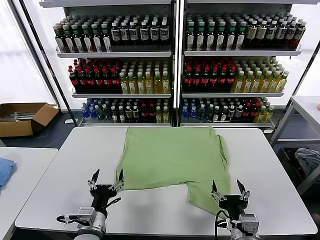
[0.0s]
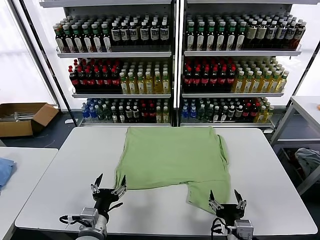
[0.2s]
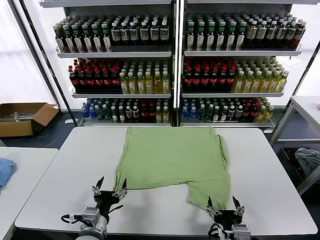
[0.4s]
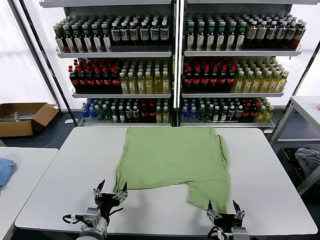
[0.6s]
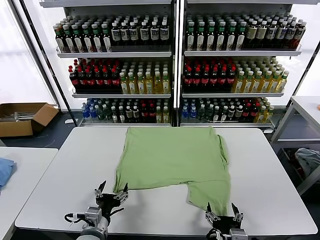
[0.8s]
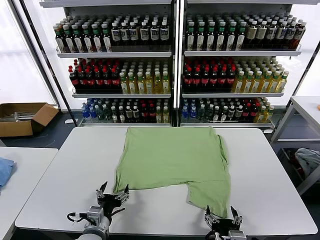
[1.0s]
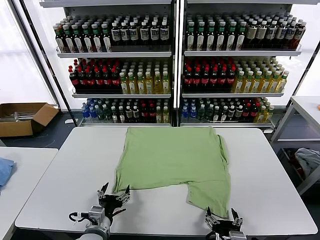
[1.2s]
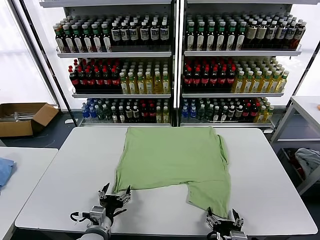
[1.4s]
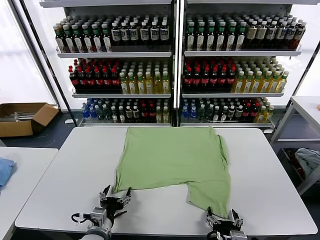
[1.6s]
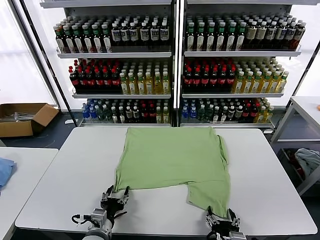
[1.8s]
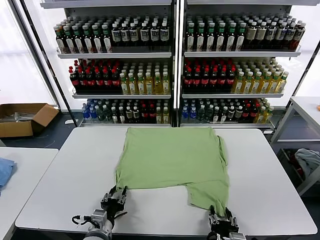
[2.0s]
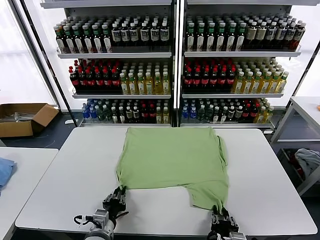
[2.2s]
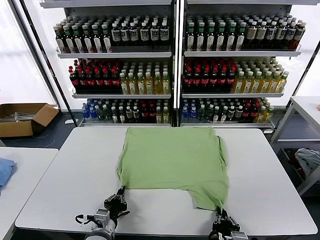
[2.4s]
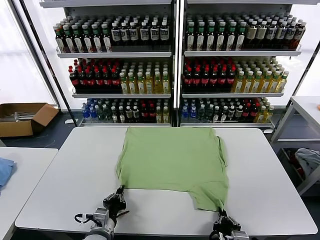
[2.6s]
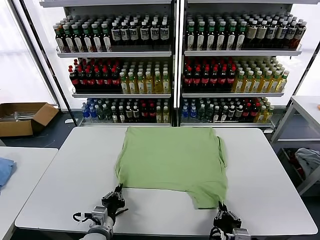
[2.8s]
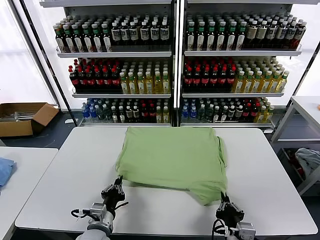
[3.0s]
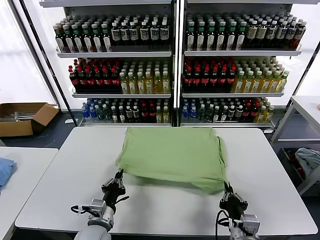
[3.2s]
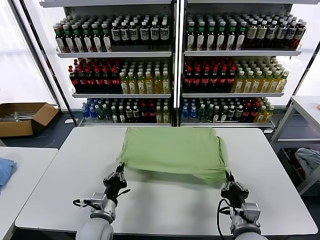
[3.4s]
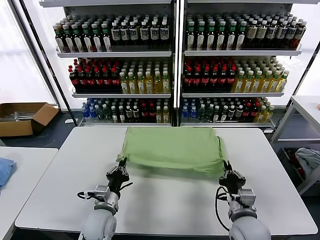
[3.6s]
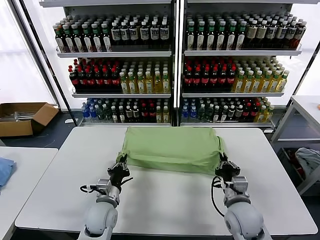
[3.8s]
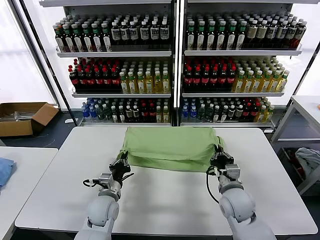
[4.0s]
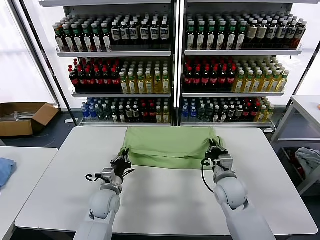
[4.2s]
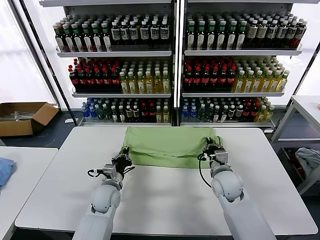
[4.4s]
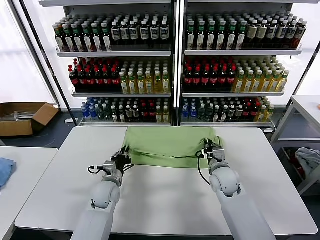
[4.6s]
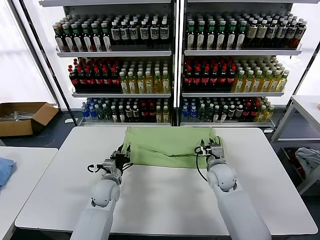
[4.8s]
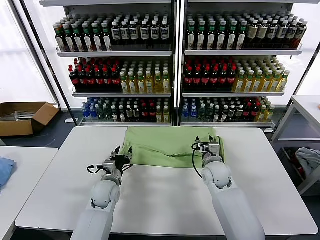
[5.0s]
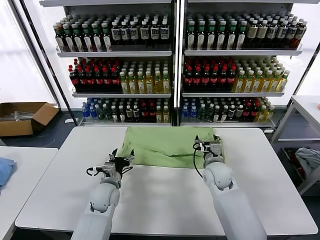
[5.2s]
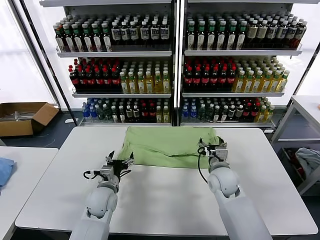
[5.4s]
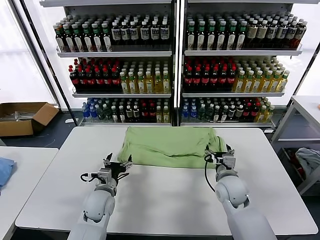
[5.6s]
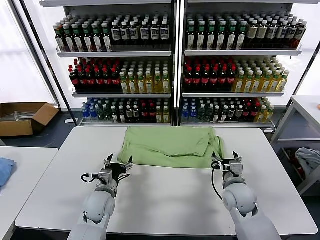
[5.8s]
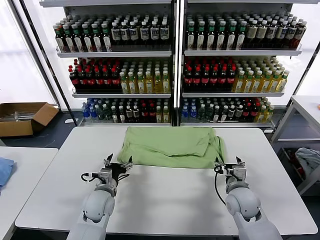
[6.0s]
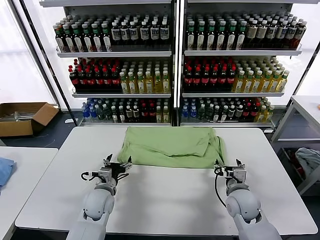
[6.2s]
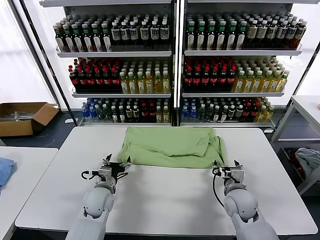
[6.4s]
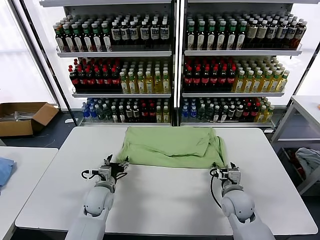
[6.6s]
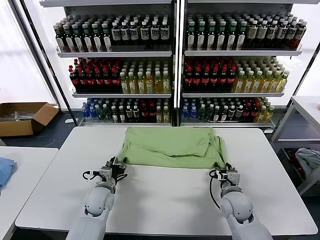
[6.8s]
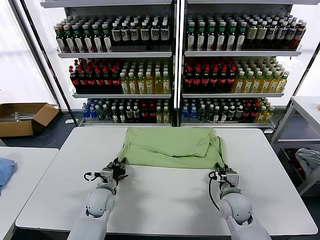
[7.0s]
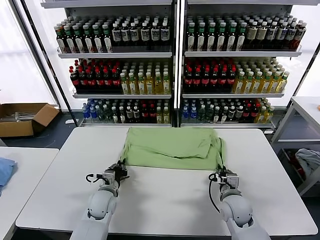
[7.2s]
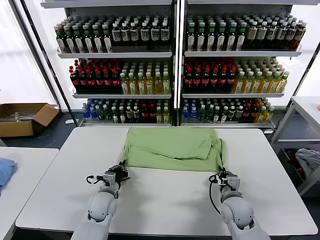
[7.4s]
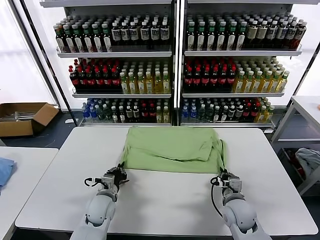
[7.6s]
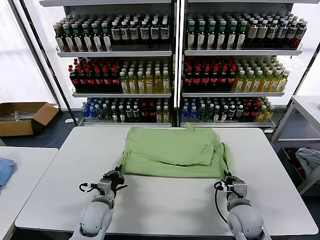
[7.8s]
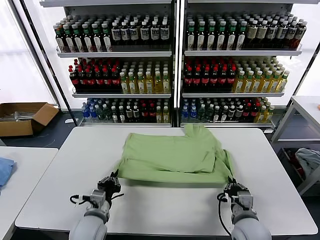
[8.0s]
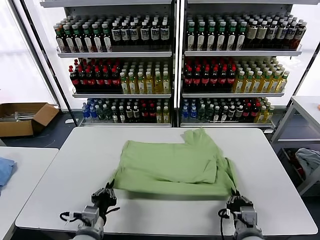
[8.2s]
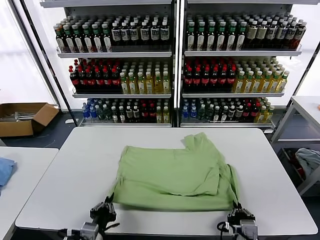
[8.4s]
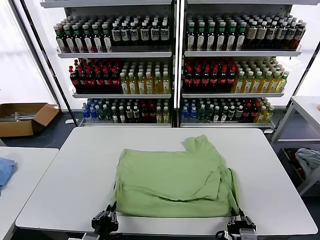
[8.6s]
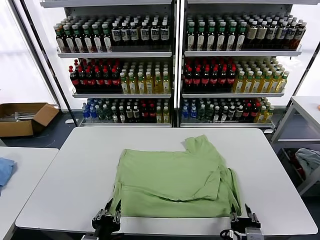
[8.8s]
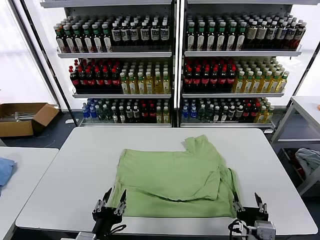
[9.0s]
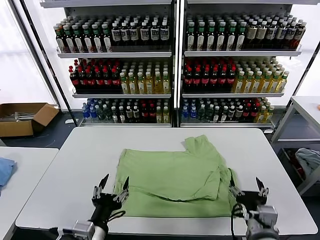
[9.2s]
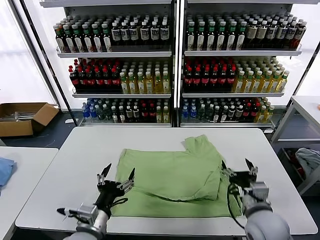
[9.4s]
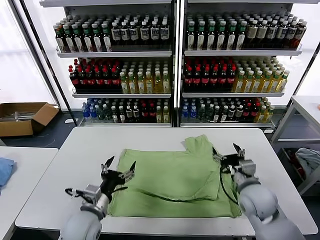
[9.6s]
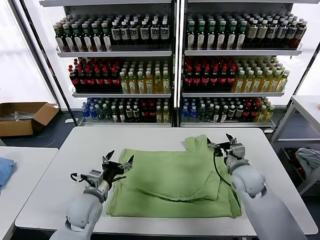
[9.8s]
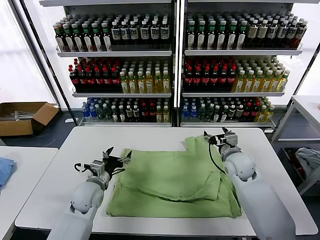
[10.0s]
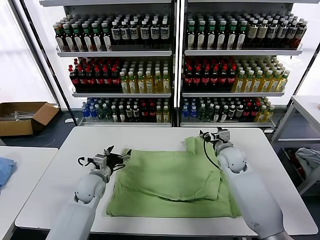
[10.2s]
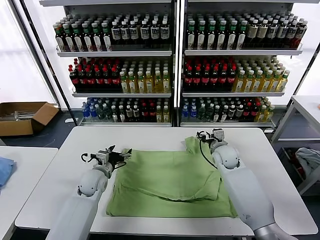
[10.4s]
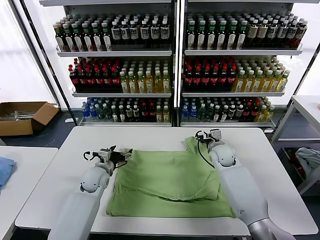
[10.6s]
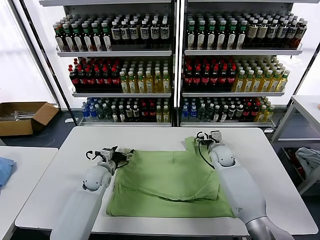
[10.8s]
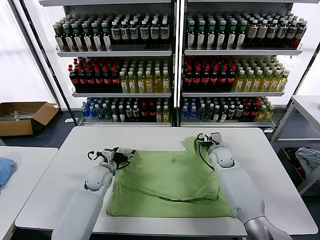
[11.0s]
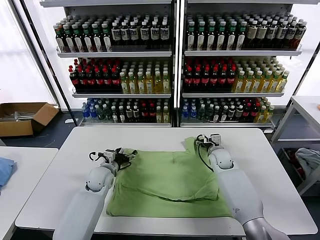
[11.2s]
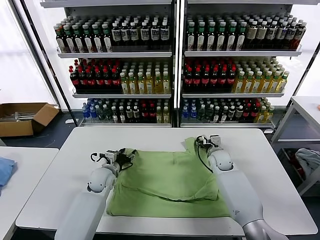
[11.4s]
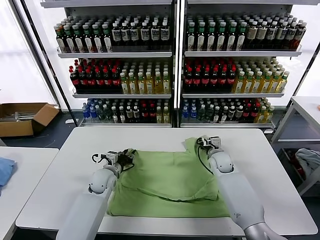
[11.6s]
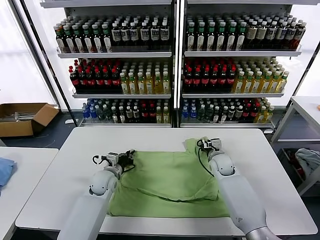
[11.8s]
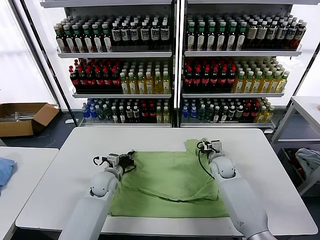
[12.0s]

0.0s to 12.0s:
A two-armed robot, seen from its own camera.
Task of the whole recording: fold and organize the clothes.
Step, 0.0s to 2.4s: use both grippers simultaneously to clamp the lower edge of the clothing fabric.
Step, 2.8s to 5.0s: use both grippers to drag the lower edge of the fabric forward and fold it over the upper edge.
Step, 5.2s to 8.8s: Drag the clothes downward with both gripper.
Step, 9.0s to 12.0s: use both grippers simultaneously to clamp the upper edge of the clothing fabric.
1.6s to 3.0s: The left gripper closes up, while the right gripper closes its fingers.
3.0s to 4.4s: The right gripper moves forward, about 25 cm, while the left gripper goes approximately 15 cm forward.
4.4s to 6.0s: The right gripper moves backward, approximately 5 cm, and opens up. Meanwhile the left gripper opens up.
6.0s to 7.6s: The left gripper closes. The right gripper closes up.
7.6s to 9.0s: Both grippers move backward and upward, approximately 20 cm. The left gripper opens up. The right gripper opens its fingers.
9.0s to 10.4s: The two grippers go about 35 cm forward. The left gripper opens.
10.4s to 12.0s: The right gripper goes some 5 cm downward, and closes up. The left gripper closes up.

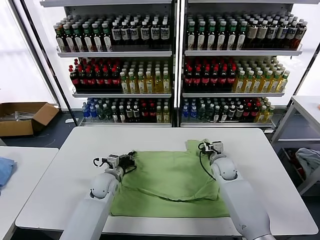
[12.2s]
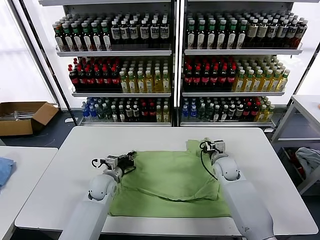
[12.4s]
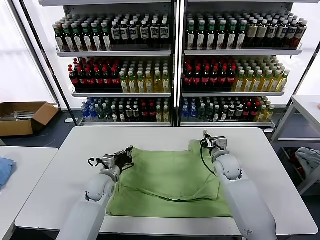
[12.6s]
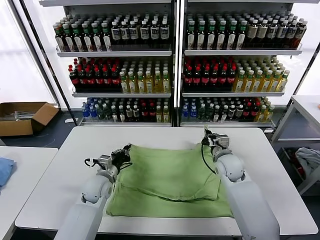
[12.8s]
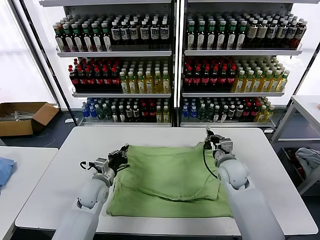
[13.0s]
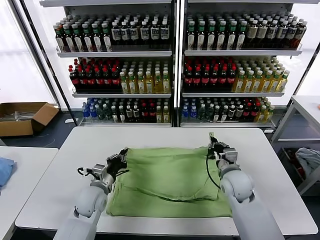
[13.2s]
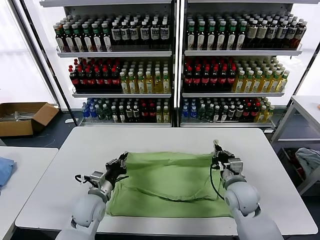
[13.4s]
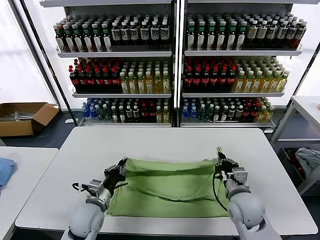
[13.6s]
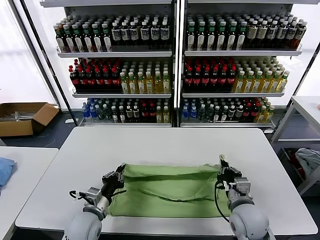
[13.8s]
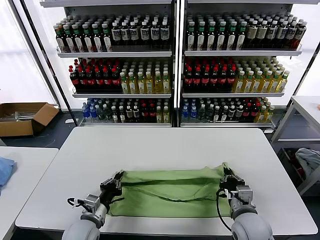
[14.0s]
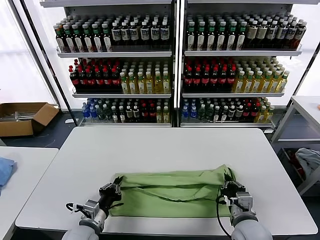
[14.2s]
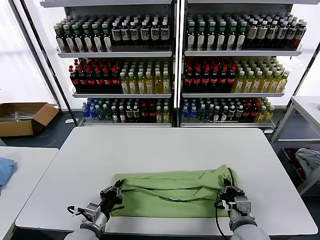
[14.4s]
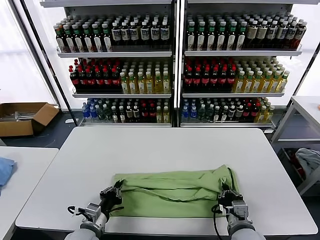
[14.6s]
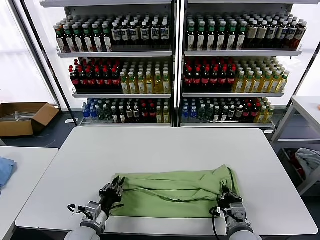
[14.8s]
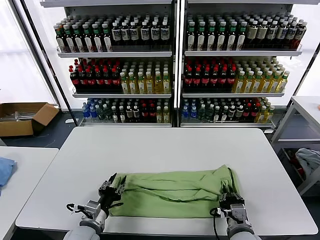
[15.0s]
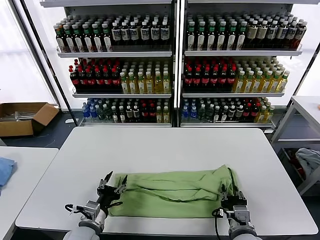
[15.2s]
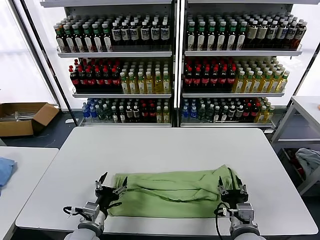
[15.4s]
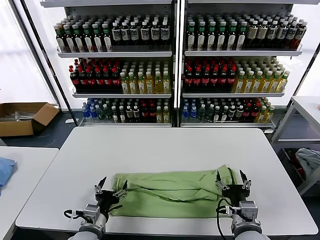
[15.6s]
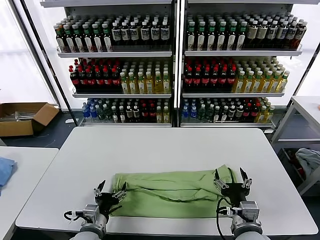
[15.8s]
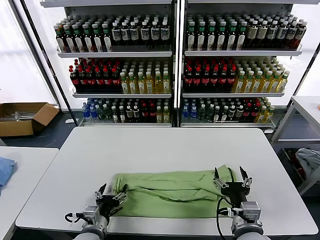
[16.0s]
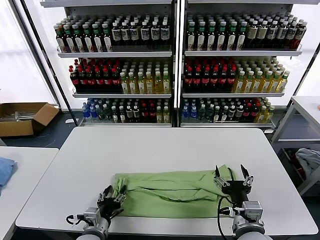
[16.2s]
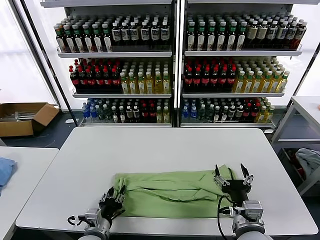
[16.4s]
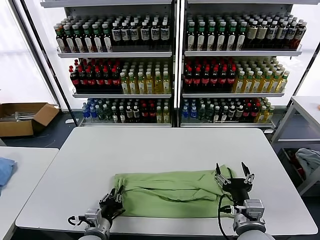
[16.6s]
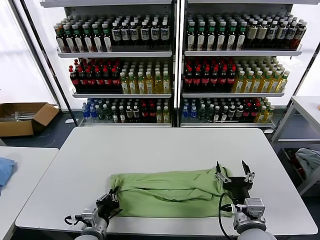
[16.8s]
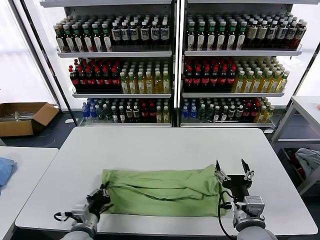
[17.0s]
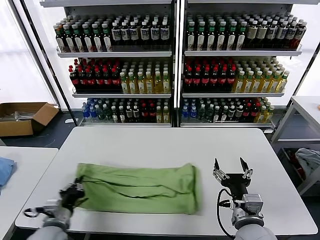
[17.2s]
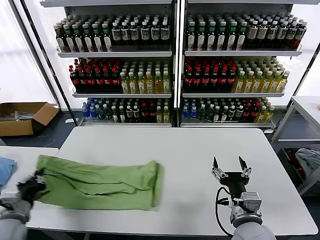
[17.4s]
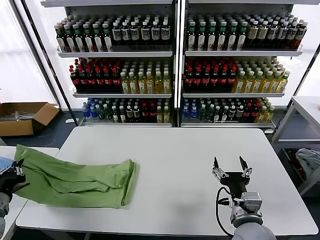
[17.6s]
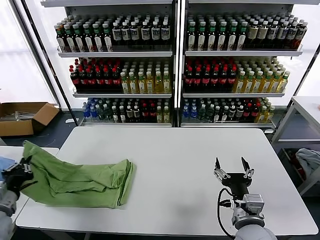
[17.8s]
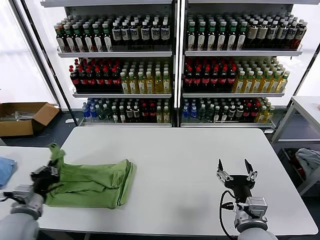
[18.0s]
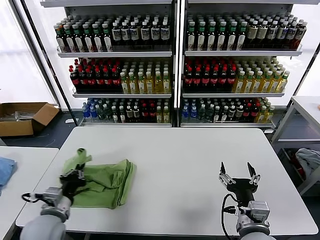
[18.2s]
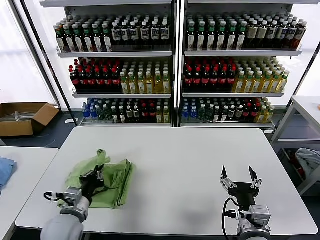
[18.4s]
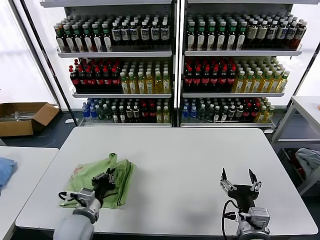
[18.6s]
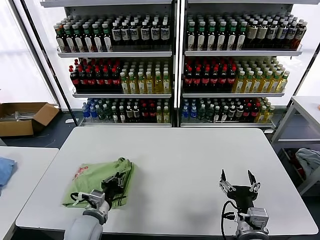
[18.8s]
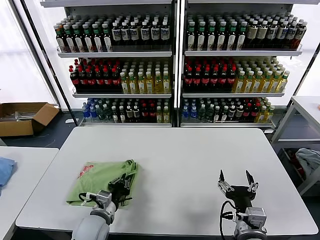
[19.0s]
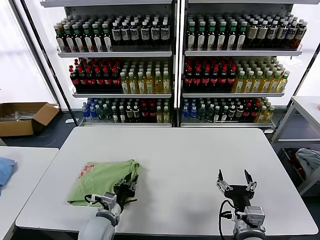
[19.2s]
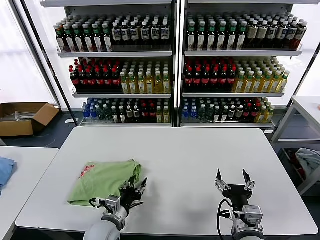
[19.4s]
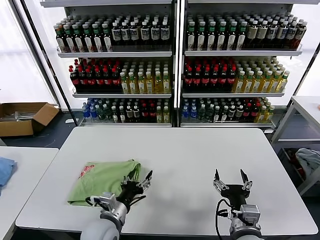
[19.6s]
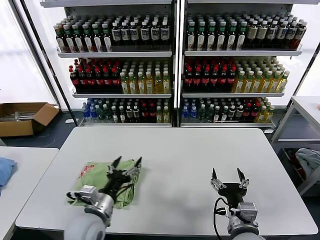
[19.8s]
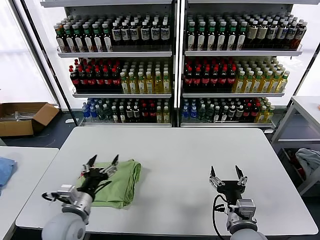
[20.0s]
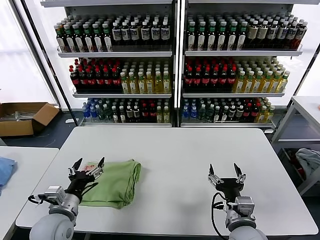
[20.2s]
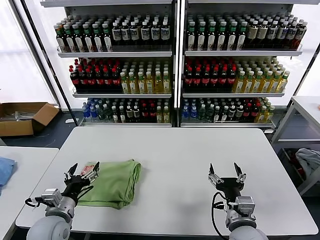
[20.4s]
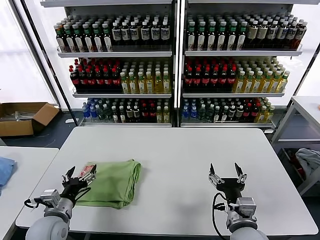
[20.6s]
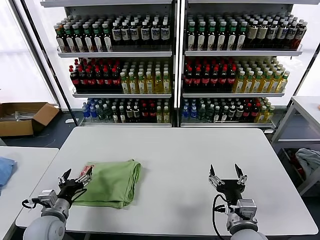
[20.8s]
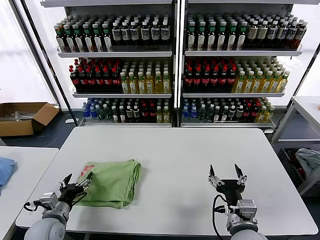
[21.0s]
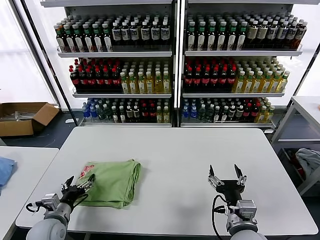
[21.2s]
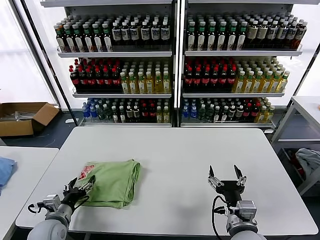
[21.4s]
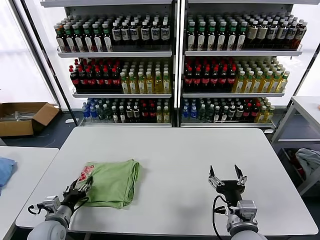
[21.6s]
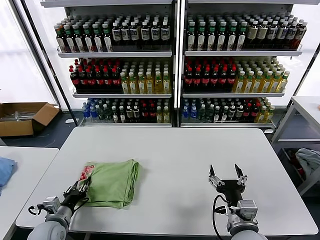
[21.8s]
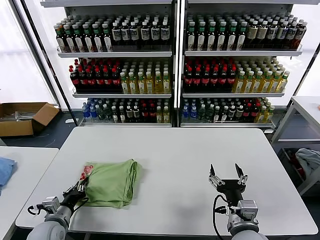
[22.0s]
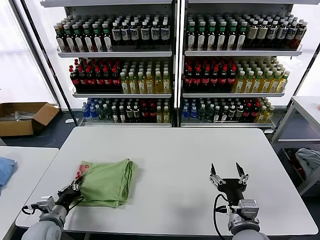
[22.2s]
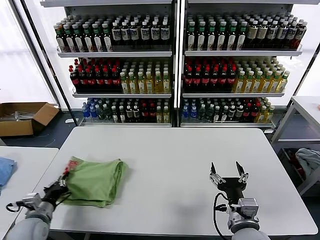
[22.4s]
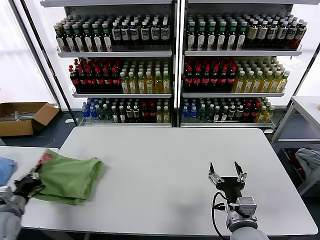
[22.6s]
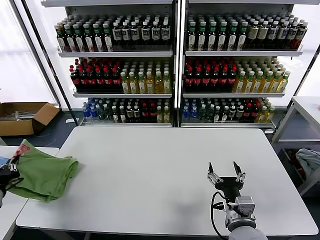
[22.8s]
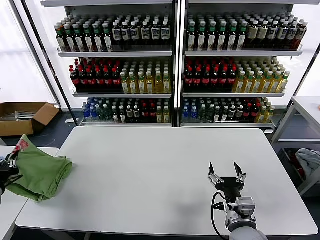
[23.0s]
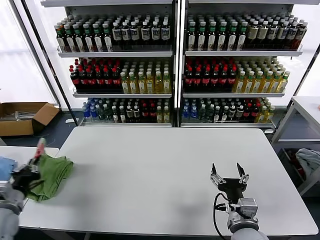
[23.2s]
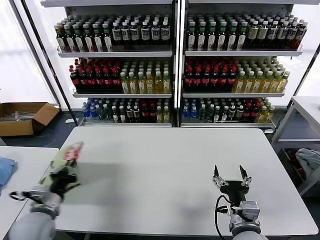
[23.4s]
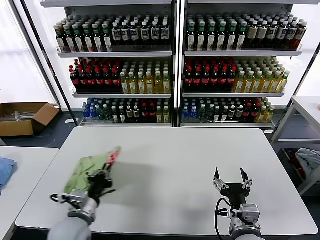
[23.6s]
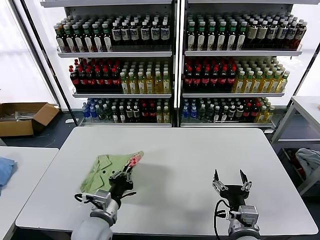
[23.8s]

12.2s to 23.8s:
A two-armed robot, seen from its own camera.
Task of the whole recording: fold and organize the clothes.
Step, 12.2s to 15.2s: use both grippers to drag the upper edge of the fabric backward and fold it over the lower edge.
Step, 15.4s to 16.8s: use the left gripper to clamp the left edge of the fabric.
Step, 17.0s to 19.4s: use the left gripper to drag the left edge of the fabric to the left and folds it over the right edge.
12.2s to 13.6s: The two grippers go roughly 15 cm backward.
13.6s to 15.0s: The two grippers go some 5 cm backward. The left gripper opens its fingers.
15.0s to 16.6s: The left gripper opens and closes again; the right gripper travels upward by about 10 cm, and opens.
16.6s to 18.0s: The left gripper shifts approximately 20 cm to the left and upward.
18.0s to 19.4s: The left gripper moves to the right and downward, approximately 25 cm, and opens its fingers.
19.4s to 21.0s: The left gripper goes roughly 15 cm to the left, and opens.
21.0s to 22.4s: The left gripper closes its fingers.
22.4s to 23.8s: The left gripper moves to the right, some 20 cm.
